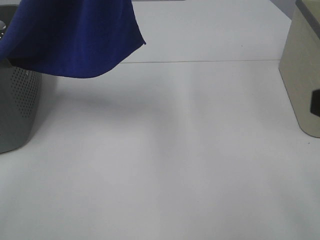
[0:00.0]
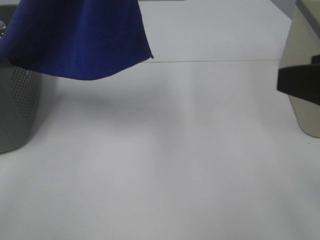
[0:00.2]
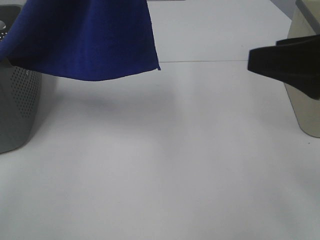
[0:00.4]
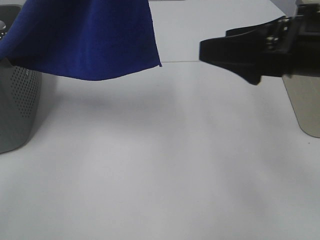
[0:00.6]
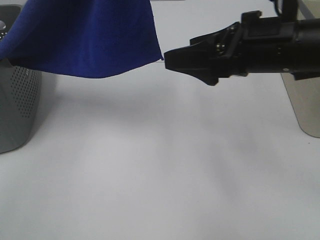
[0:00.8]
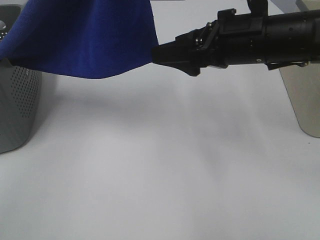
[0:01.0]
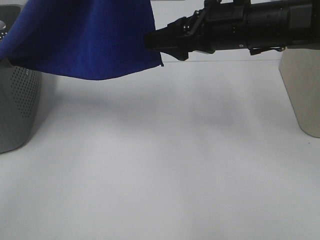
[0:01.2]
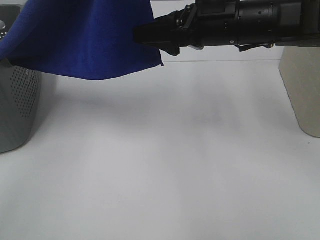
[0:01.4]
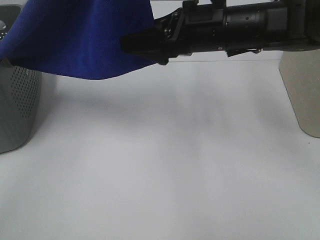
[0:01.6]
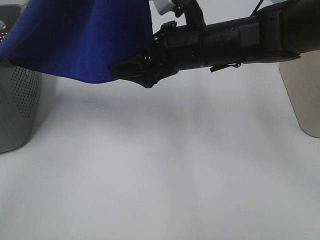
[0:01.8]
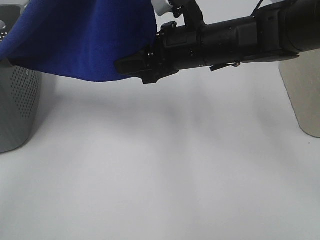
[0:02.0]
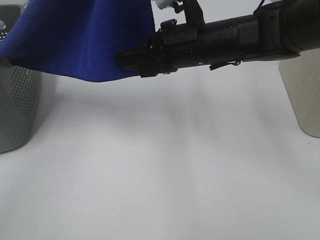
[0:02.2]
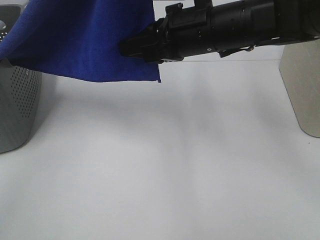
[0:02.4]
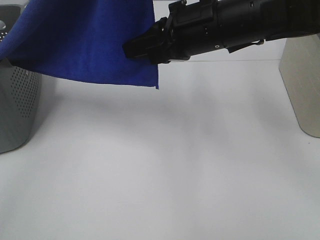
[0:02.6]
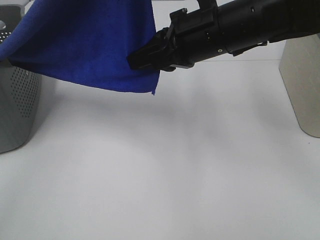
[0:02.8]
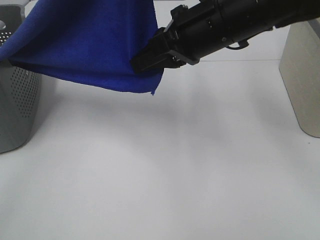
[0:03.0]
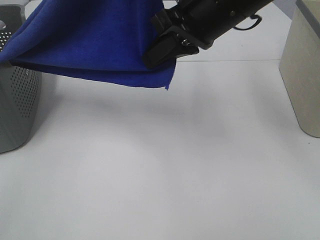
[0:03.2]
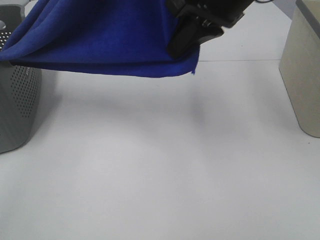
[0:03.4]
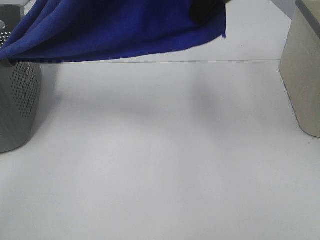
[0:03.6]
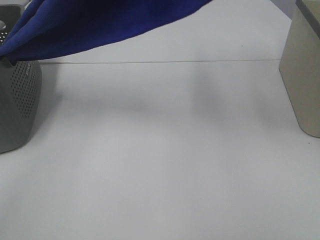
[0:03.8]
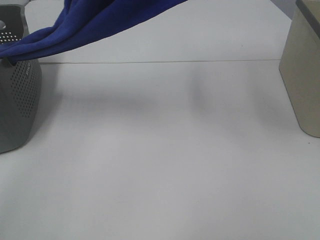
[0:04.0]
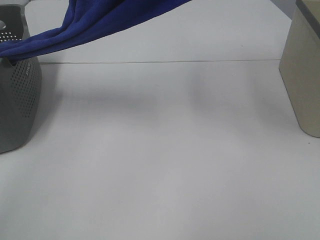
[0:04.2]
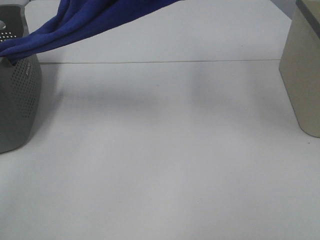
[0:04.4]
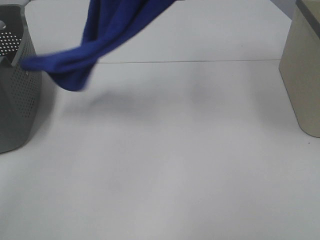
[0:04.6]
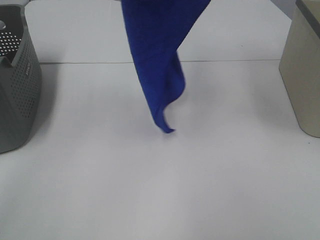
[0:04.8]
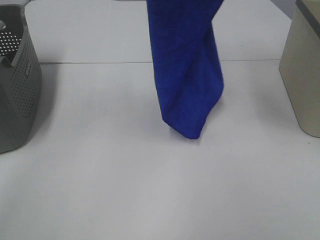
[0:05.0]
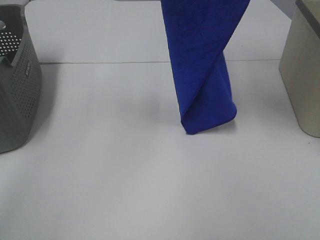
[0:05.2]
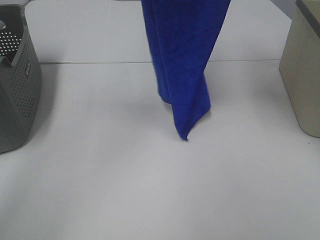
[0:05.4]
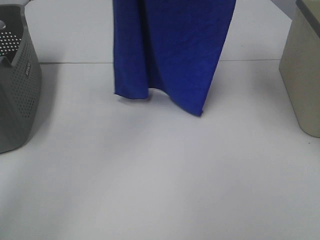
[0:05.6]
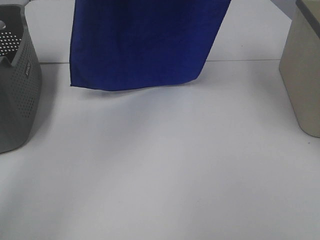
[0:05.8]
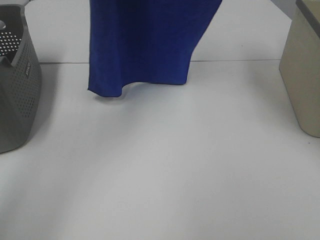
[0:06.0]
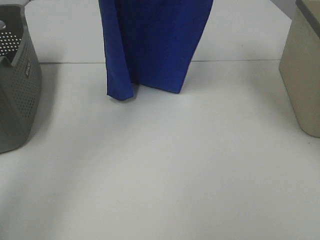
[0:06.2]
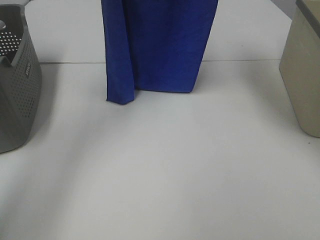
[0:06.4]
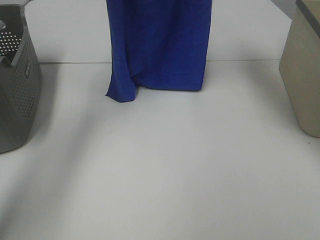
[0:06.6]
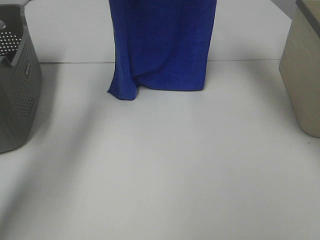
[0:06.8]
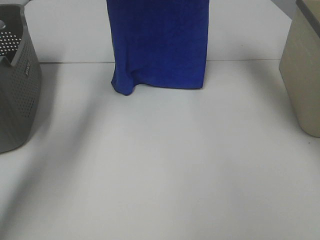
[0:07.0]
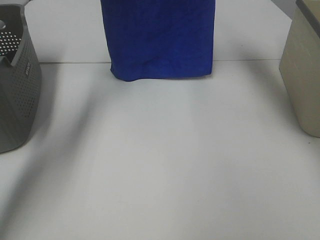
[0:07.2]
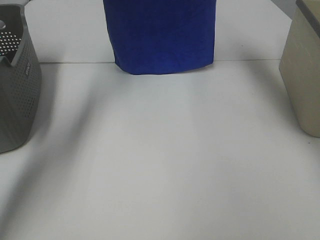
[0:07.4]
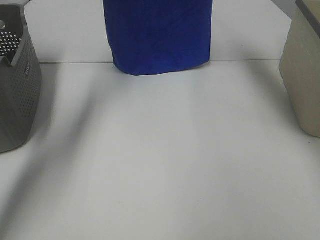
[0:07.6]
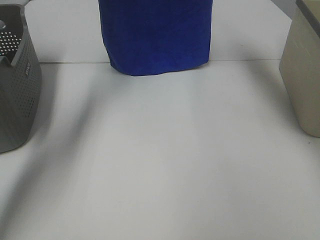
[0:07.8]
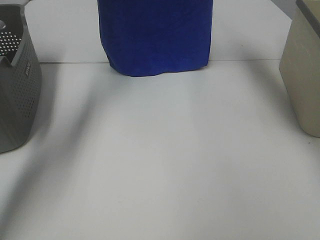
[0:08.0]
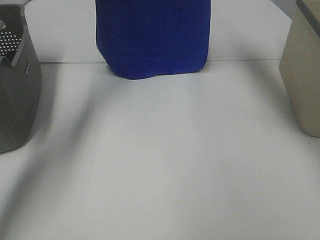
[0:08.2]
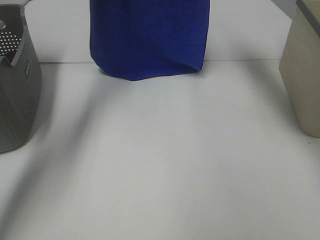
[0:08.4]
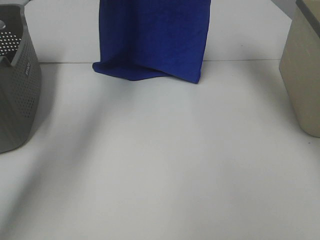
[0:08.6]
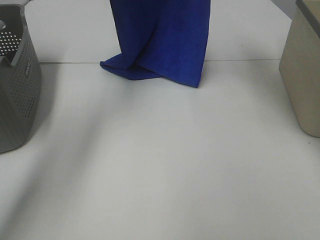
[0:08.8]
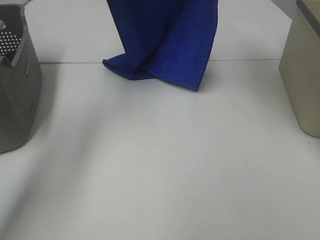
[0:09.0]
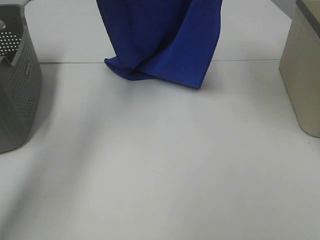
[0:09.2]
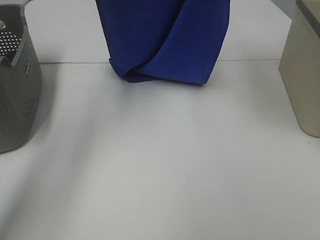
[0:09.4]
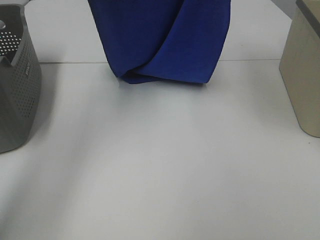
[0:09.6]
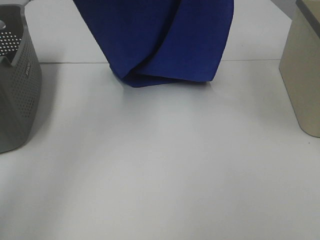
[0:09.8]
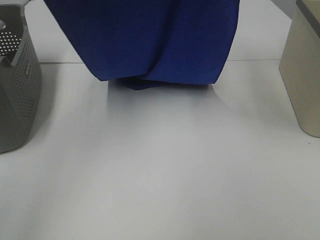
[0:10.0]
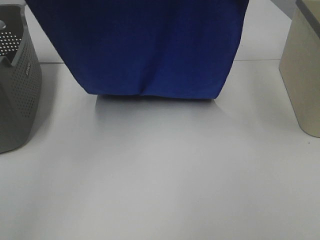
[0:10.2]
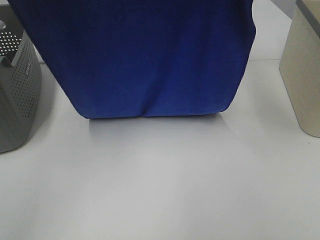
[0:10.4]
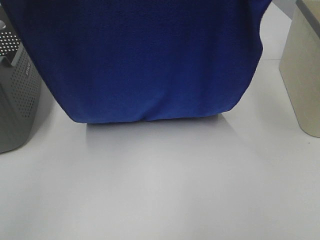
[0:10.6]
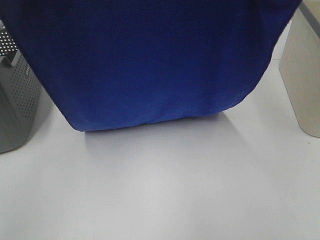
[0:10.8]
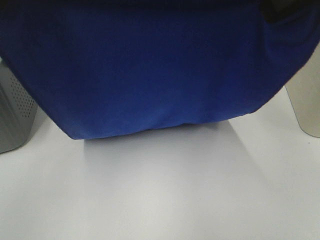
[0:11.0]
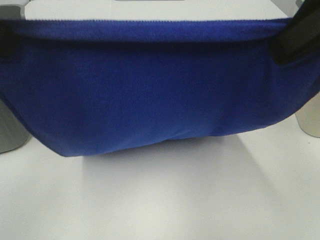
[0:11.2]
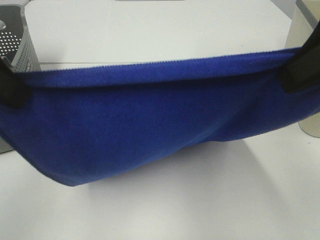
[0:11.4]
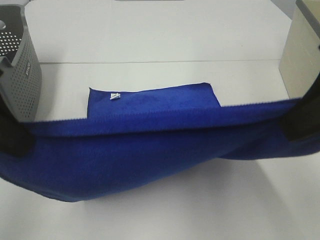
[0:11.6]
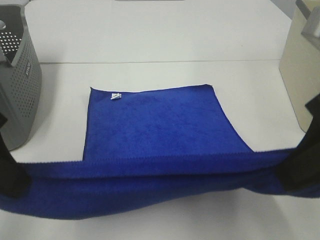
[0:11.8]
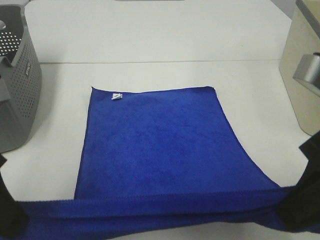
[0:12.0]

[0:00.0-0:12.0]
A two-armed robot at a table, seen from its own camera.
Task of the whole recording: Remove the towel and place it.
Step, 0.0 to 2.6 s: Right hand: grab a corner of the blue towel and straighten it.
Step, 2.8 to 10.0 s: Left hand: spread the blue towel flat on the table.
Step, 2.8 to 10.0 s: Right hand: spread the blue towel flat on the table.
0.0 to 1.6 s: The right gripper travels forward and to the left by roughly 30 cm.
1.6 to 3.0 s: The right gripper closes.
3.0 to 4.4 s: The left gripper moves upward, some 5 cm. Meanwhile the right gripper travels upward by approximately 20 cm.
4.4 to 6.0 s: The left gripper travels forward and to the left by approximately 10 cm. The right gripper is displaced forward by roughly 5 cm.
6.0 to 7.6 s: The right gripper travels forward by roughly 10 cm. The left gripper goes about 15 cm forward and downward.
7.6 to 9.0 s: The grippers both shift backward by roughly 5 cm.
9.0 to 10.4 s: Both grippers move backward, some 15 cm.
10.4 to 12.0 s: The grippers both shift downward and backward by about 25 cm.

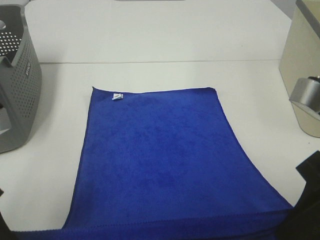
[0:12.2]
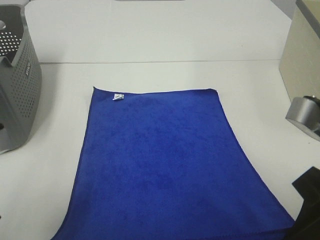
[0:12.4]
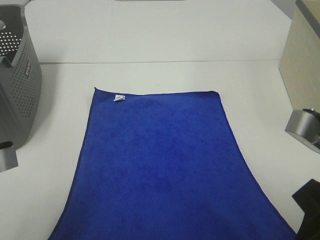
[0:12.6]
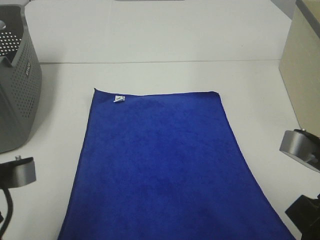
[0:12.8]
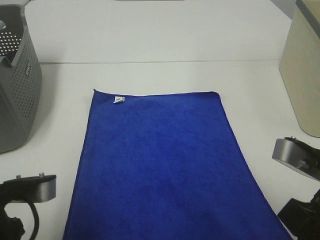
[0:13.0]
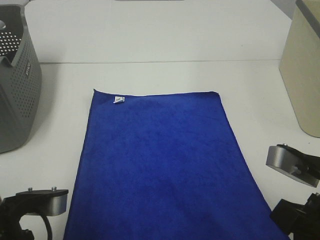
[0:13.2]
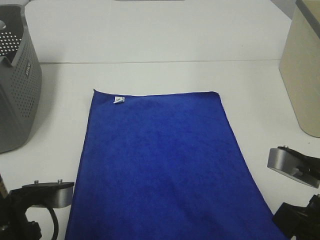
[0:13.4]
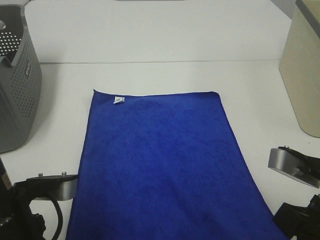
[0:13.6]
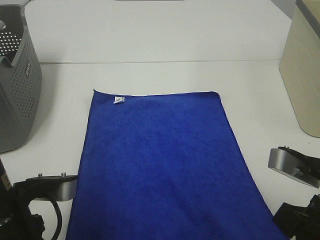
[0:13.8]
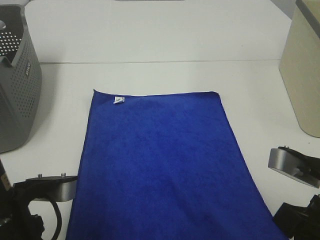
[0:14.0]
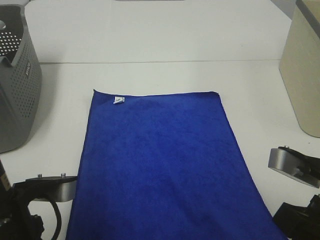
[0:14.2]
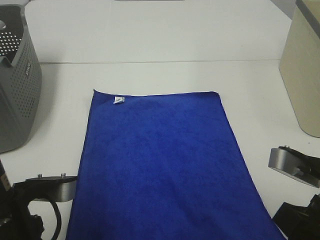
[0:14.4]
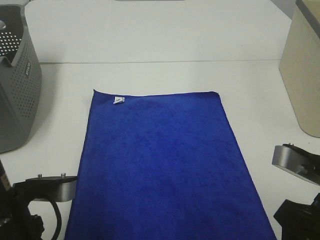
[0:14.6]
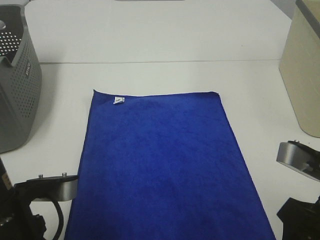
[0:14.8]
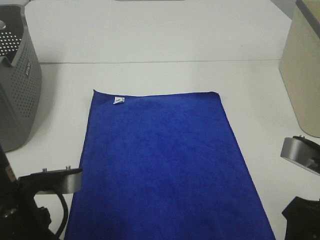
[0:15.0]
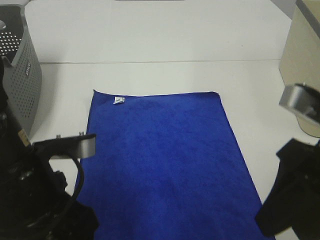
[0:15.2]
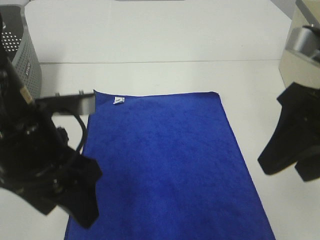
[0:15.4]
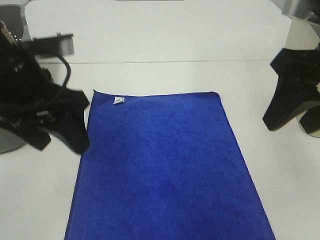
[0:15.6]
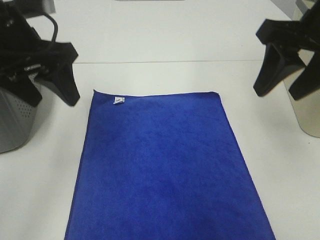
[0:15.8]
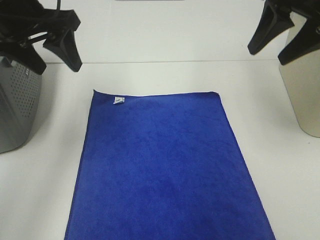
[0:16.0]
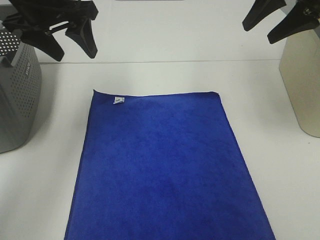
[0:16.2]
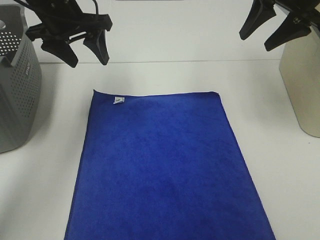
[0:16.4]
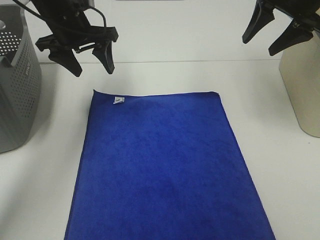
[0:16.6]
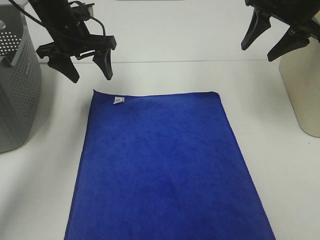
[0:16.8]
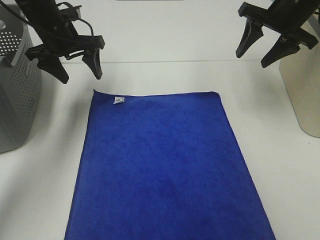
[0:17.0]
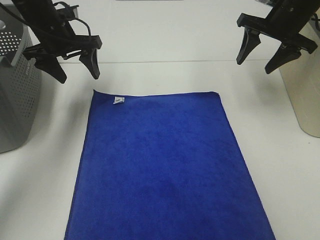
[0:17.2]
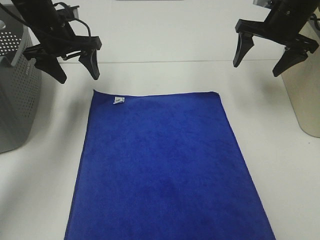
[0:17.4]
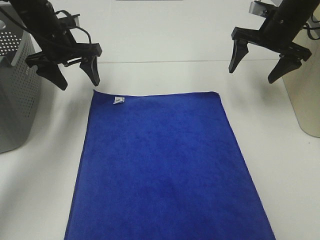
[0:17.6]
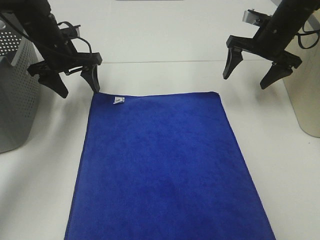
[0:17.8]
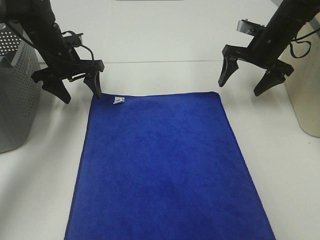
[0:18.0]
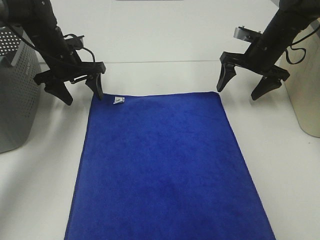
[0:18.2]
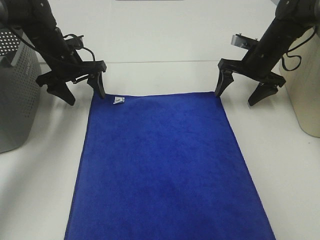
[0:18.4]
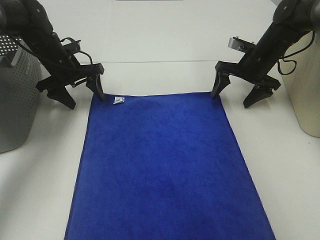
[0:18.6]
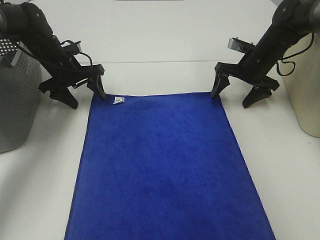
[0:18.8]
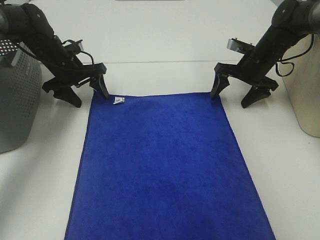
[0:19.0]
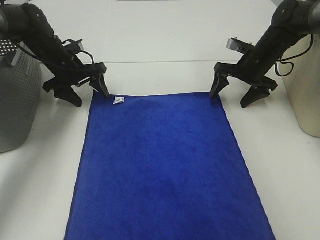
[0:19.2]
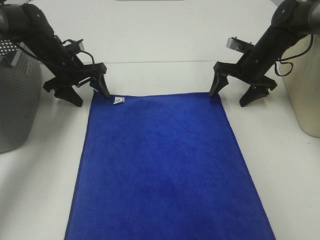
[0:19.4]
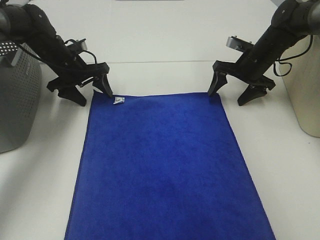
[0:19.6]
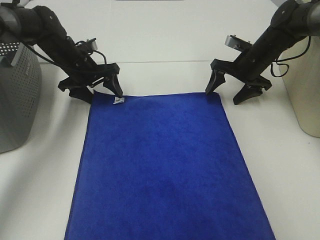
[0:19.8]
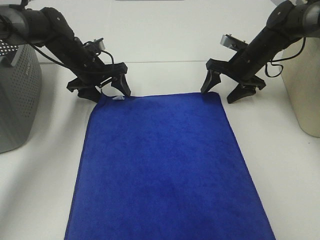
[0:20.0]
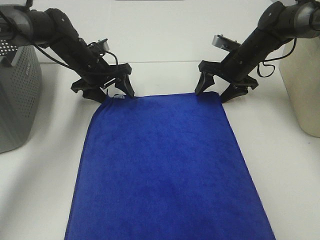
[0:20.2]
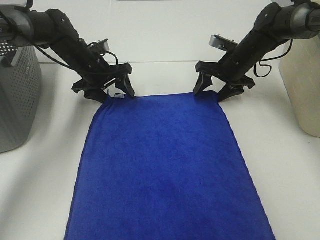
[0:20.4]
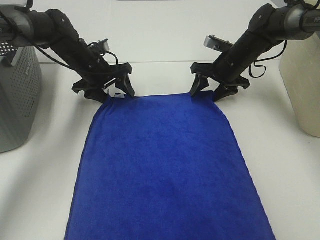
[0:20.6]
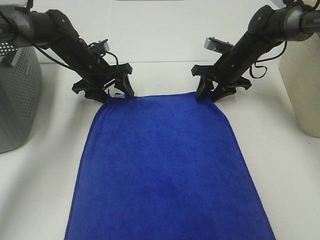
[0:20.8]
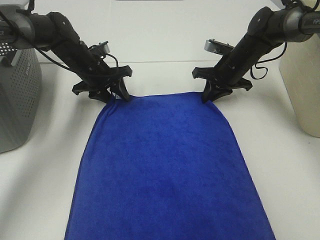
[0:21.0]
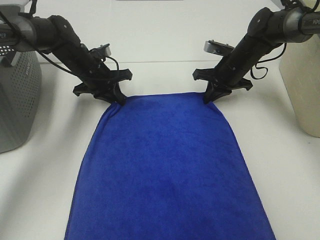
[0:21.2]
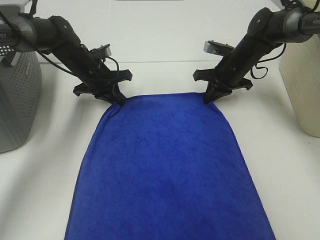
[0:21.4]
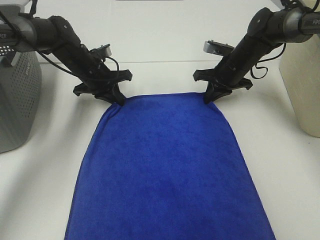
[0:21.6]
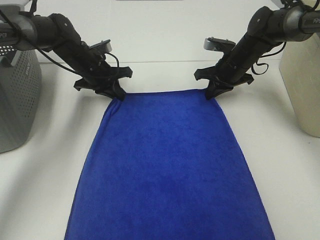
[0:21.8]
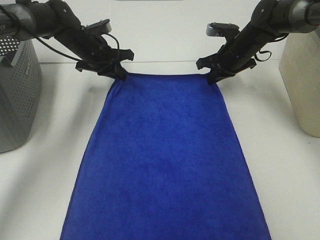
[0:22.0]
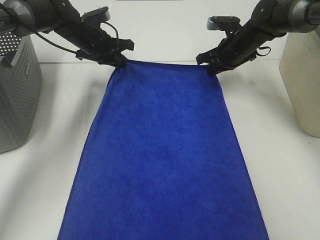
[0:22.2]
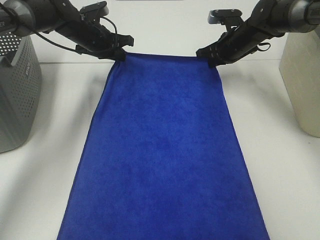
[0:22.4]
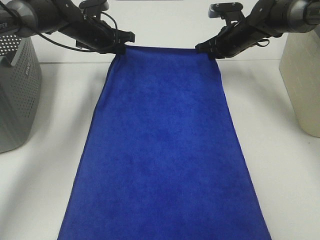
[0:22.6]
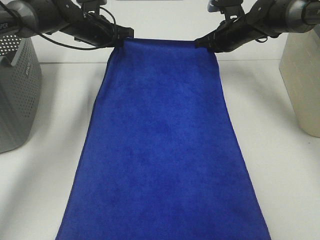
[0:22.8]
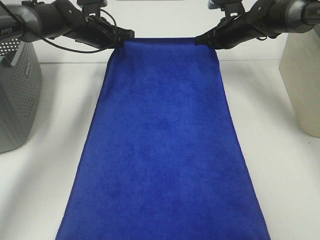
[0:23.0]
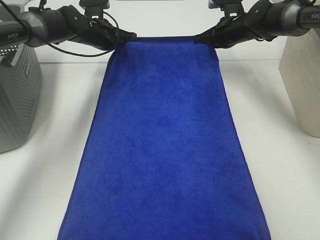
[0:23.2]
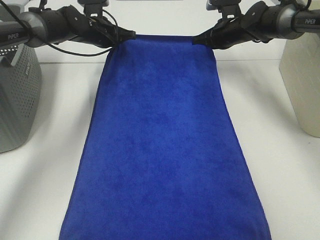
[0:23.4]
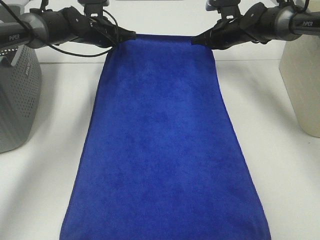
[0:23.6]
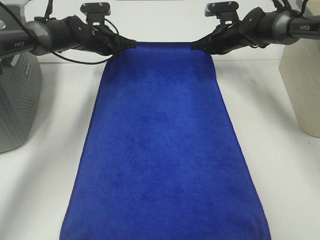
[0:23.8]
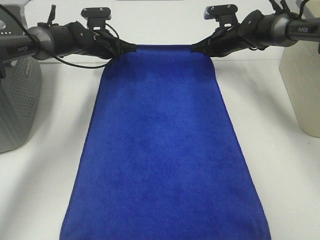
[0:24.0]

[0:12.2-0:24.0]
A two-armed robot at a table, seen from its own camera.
Task of the whole recording: Remove the towel and place it.
Step, 12.2 to 18.4 s: Left hand:adjust the blue towel.
Step, 12.2 to 18.4 s: Right hand:adjust the blue towel.
12.2 to 13.6 s: The right gripper shifts approximately 5 cm downward. Meanwhile the left gripper goes about 10 cm downward and to the right.
13.6 to 15.2 s: The right gripper heads upward, covering some 5 cm, and opens its fingers. Meanwhile the left gripper opens its fingers.
15.2 to 16.6 s: The grippers both shift forward by roughly 30 cm.
16.6 to 18.2 s: The left gripper travels downward by approximately 10 cm. Meanwhile the right gripper travels downward and forward by approximately 15 cm.
18.2 to 19.6 s: The grippers move only a little.
19.6 to 21.0 s: The left gripper changes place by approximately 5 cm; the right gripper closes its fingers.
21.0 to 22.6 s: The left gripper moves forward and upward, roughly 10 cm, and closes. The right gripper changes place by roughly 5 cm.
22.6 to 24.0 s: The grippers move only a little.
